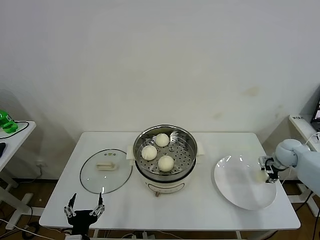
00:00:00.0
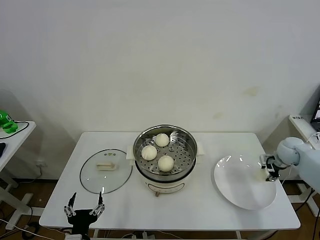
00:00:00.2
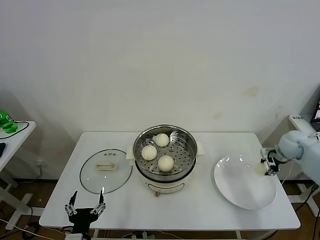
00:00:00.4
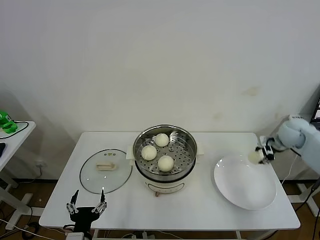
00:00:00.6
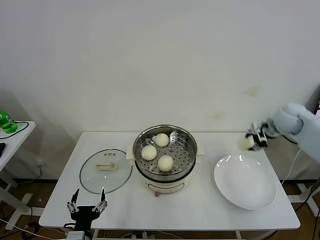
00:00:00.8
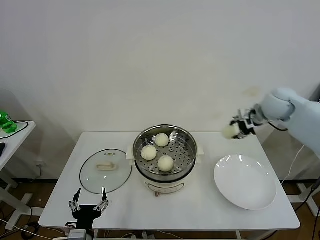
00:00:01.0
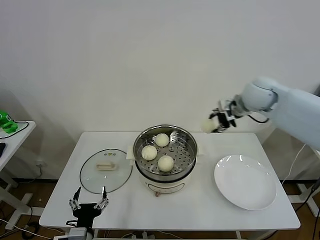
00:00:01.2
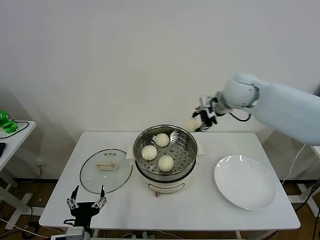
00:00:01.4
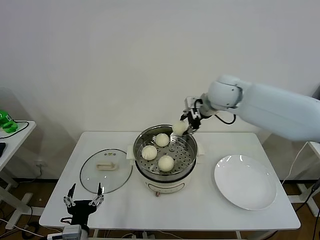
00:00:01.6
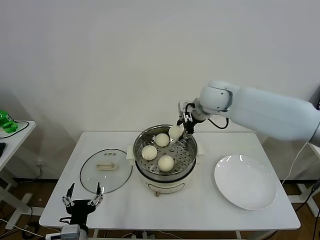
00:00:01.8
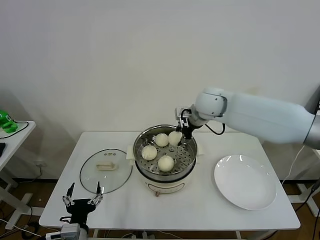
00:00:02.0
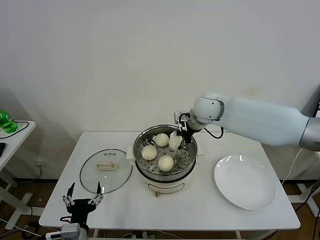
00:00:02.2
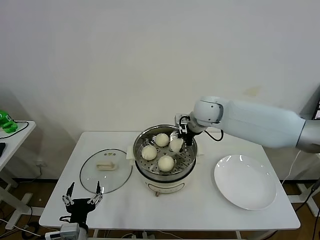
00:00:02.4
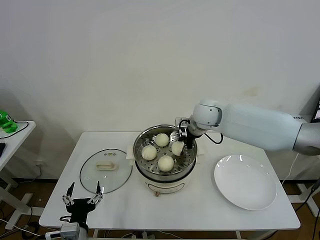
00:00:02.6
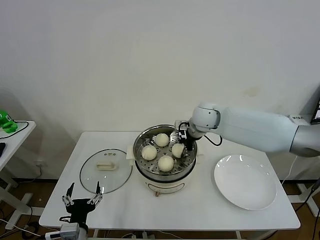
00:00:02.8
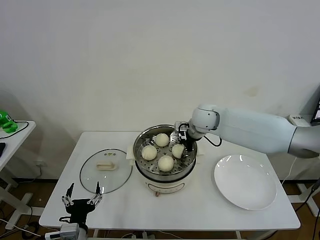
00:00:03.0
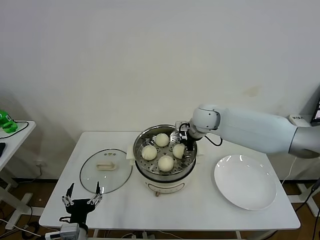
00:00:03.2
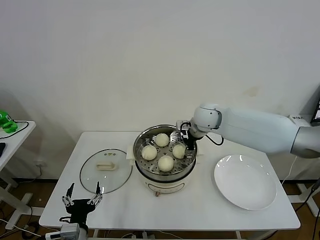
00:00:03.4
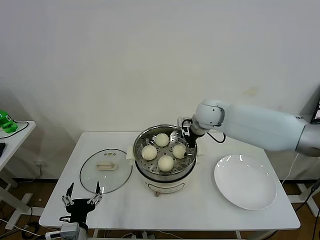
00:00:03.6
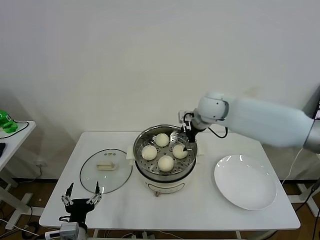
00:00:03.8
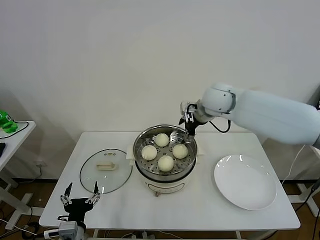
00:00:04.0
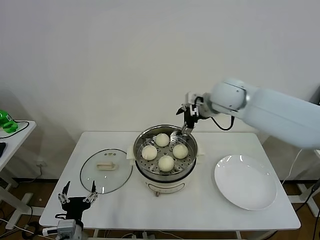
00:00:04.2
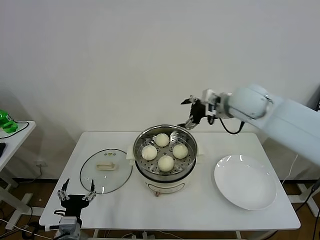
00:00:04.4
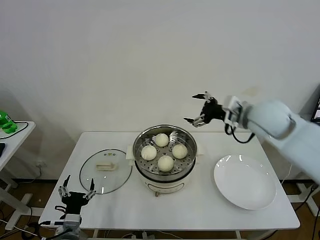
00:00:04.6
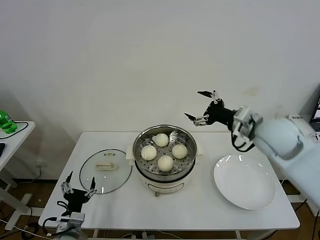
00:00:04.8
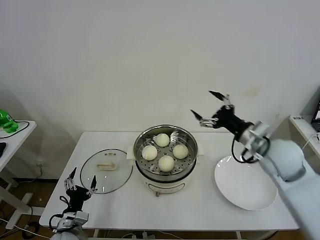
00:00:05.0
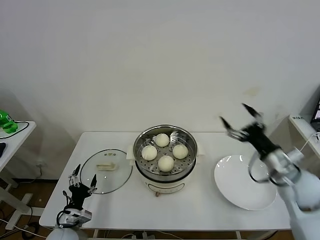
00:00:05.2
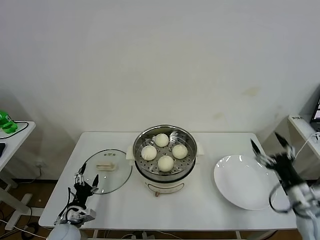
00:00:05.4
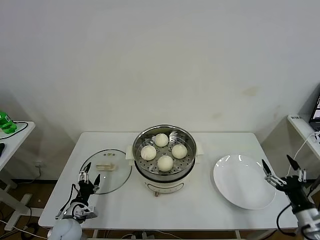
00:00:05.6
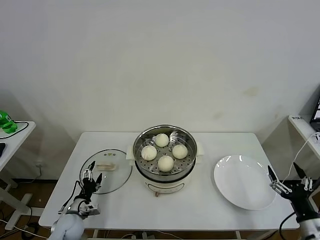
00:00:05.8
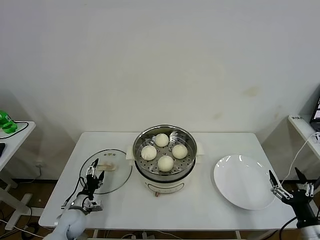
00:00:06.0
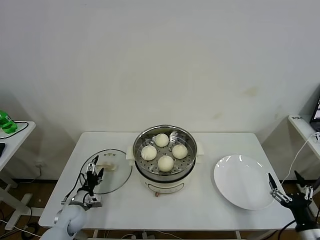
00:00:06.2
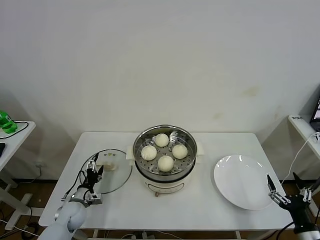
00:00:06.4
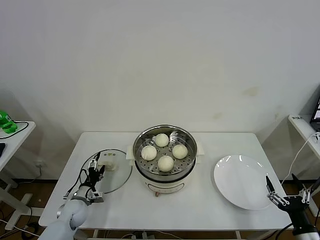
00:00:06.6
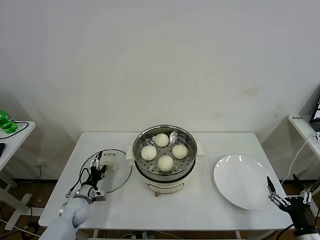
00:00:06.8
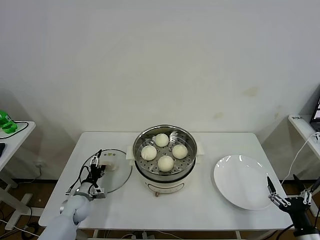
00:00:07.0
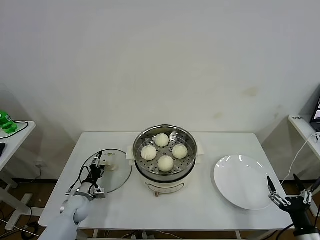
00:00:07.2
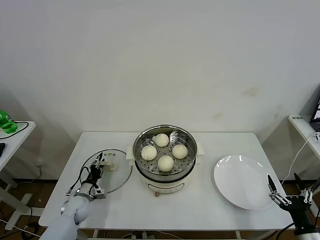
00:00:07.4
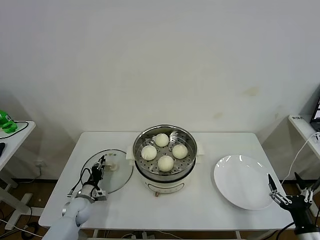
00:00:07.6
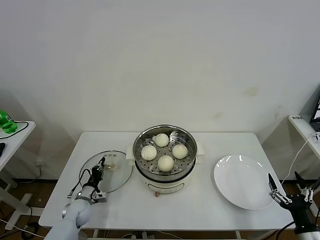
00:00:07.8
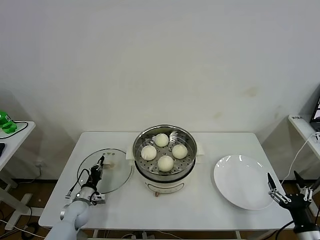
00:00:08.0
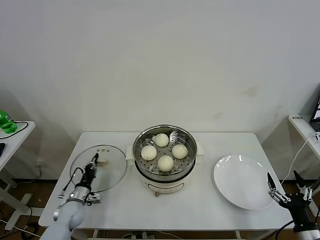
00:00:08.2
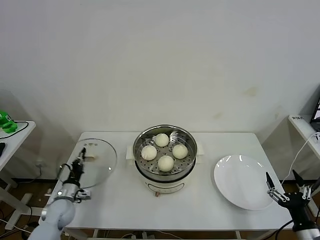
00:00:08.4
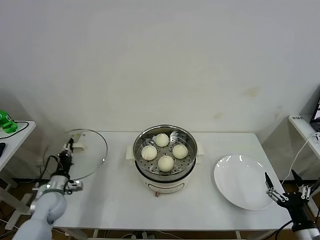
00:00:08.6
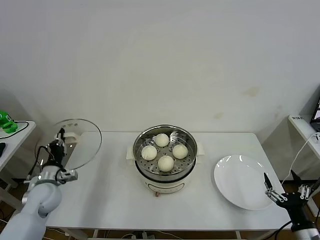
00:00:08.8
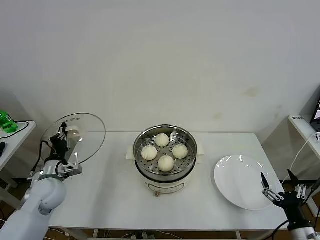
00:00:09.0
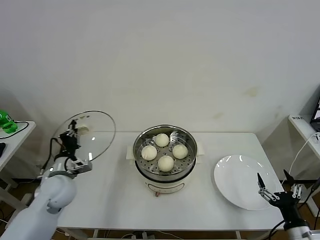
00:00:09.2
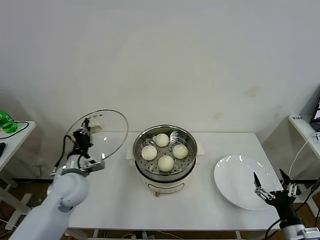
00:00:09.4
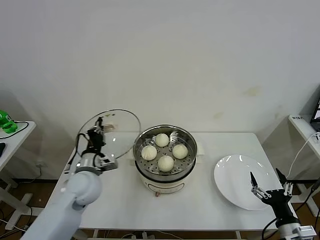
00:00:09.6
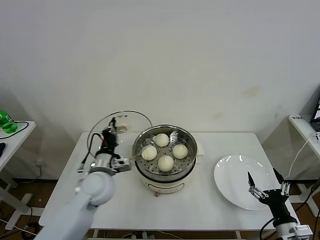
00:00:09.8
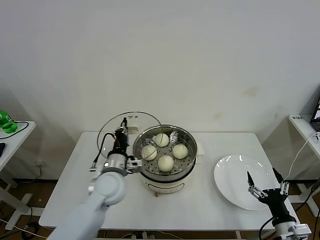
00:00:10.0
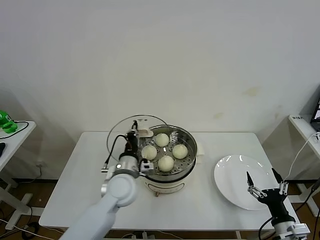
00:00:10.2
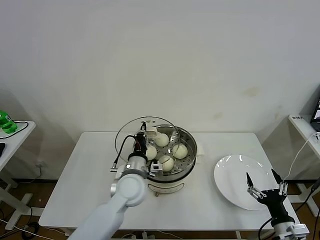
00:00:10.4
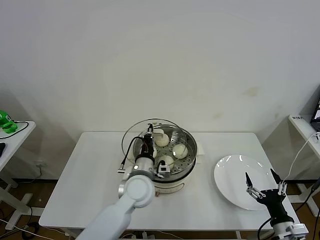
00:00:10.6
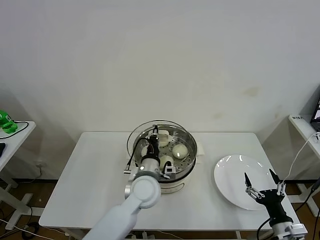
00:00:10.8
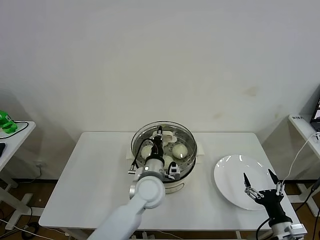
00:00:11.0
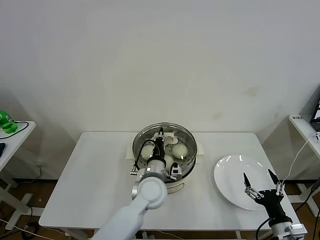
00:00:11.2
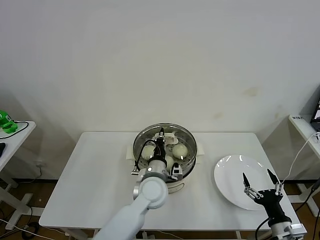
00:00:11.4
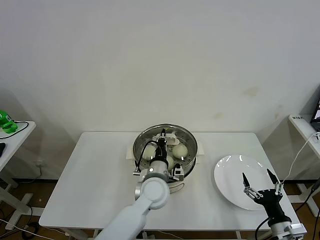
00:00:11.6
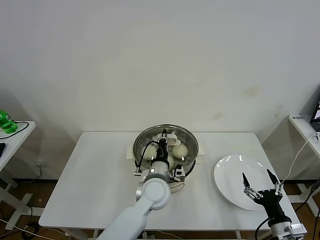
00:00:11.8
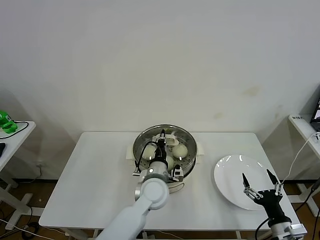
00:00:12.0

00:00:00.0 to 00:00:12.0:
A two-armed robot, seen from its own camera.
Task of the whole recording: take steamed baozi put them in steamer then cover it.
Step, 00:00:00.4 to 00:00:03.4: Place the baozi on the steamer with right gripper.
Step, 00:00:03.6 to 00:00:08.0: Grasp the pot lid with left gripper.
00:00:00.0 to 00:00:01.6: The right gripper goes about 40 cm to the left and upward.
00:00:01.6 to 00:00:03.0: The right gripper moves downward, about 10 cm.
00:00:03.0 to 00:00:04.4: The right gripper is displaced upward, to the right and backward by about 15 cm, and opens its fingers.
00:00:04.4 to 00:00:06.0: The right gripper is displaced backward, downward and to the right by approximately 50 cm. Meanwhile the left gripper is displaced forward, downward and to the left by approximately 20 cm.
00:00:06.0 to 00:00:07.6: The left gripper shifts some 5 cm forward, and closes its fingers.
00:00:07.6 to 00:00:09.0: The left gripper shifts roughly 20 cm upward.
00:00:09.0 to 00:00:10.4: The left gripper goes approximately 25 cm to the right.
00:00:10.4 to 00:00:12.0: The left gripper travels to the right by approximately 10 cm.

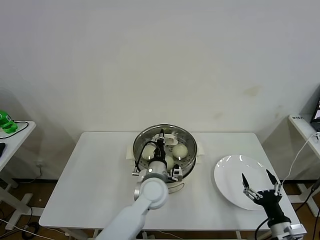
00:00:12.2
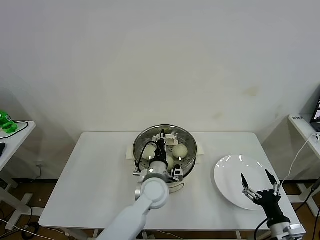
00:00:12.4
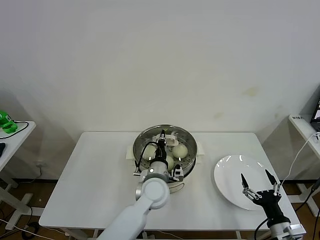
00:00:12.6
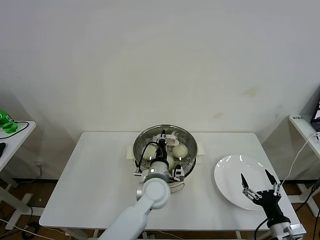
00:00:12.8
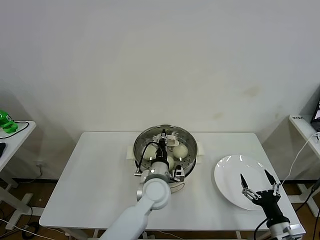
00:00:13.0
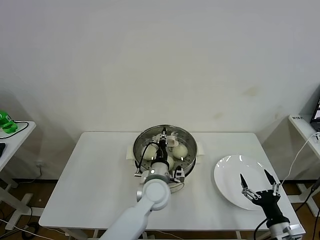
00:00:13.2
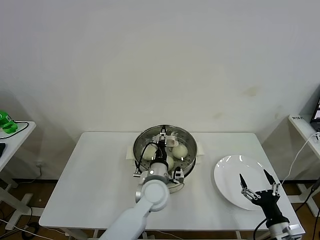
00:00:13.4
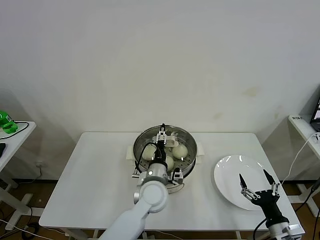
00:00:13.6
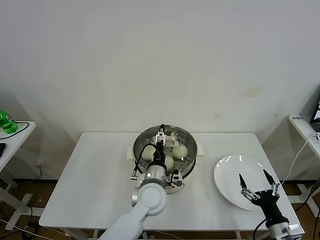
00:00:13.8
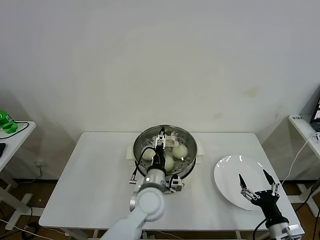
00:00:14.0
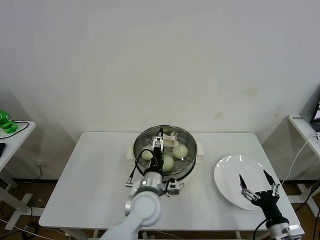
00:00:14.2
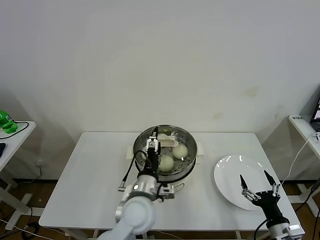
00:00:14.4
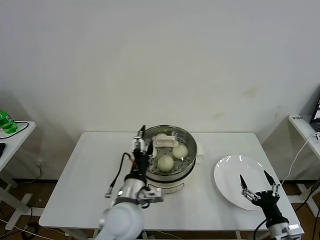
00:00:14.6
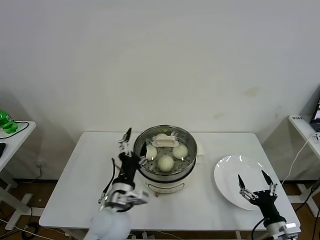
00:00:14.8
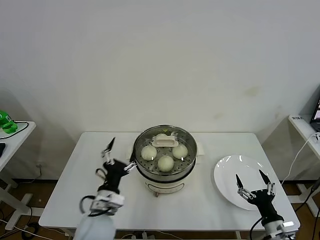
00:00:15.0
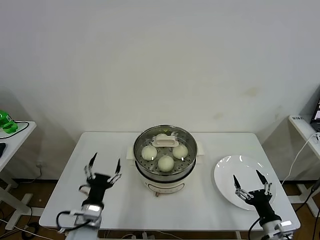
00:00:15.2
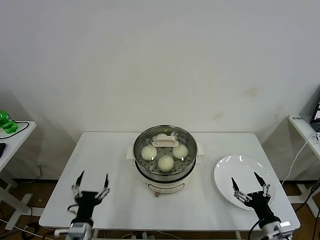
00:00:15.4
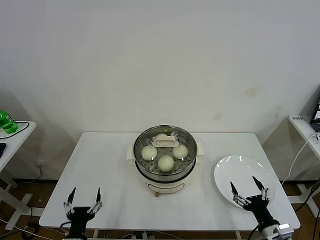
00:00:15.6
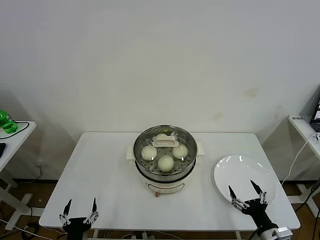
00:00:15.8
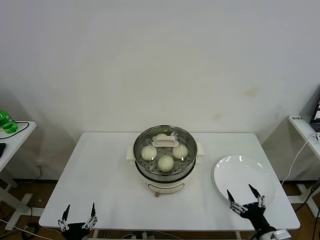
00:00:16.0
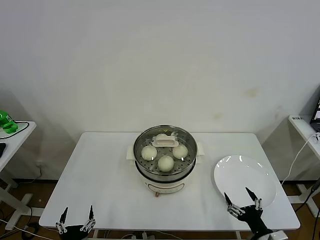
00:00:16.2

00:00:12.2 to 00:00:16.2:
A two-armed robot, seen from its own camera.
Task of the whole recording: take steamed baozi put them in steamer then cover it.
00:00:12.2 to 00:00:13.6: The left gripper opens up.
00:00:13.6 to 00:00:14.8: The left gripper is displaced backward and to the left by some 15 cm.
00:00:14.8 to 00:00:16.2: The left gripper moves backward, downward and to the left, about 25 cm.
